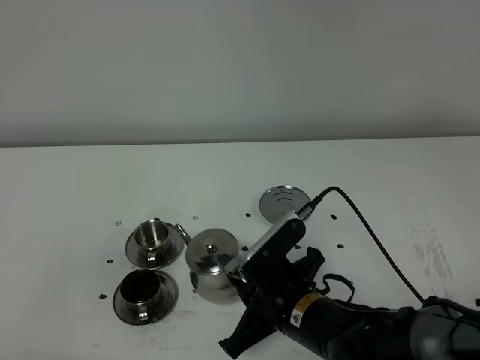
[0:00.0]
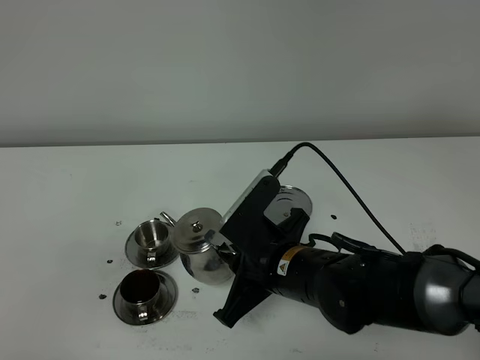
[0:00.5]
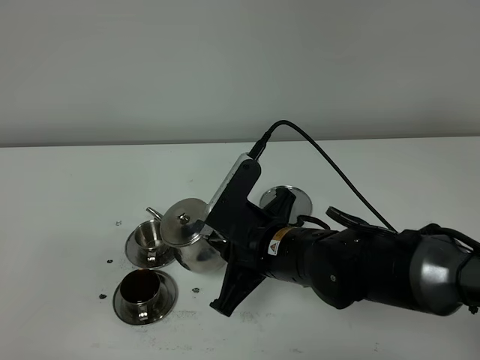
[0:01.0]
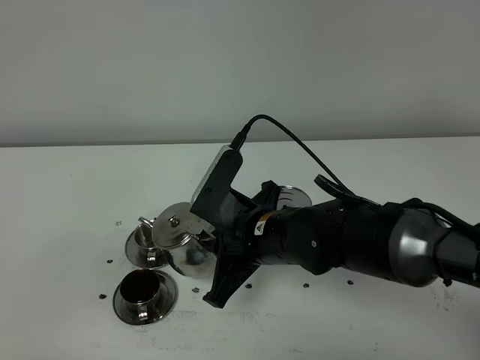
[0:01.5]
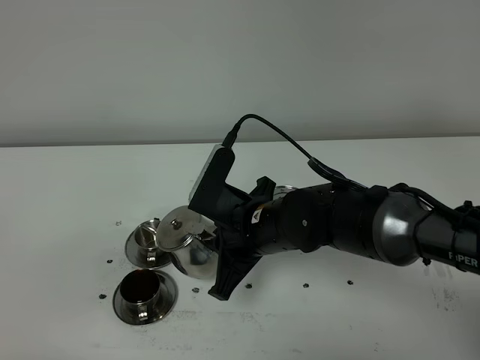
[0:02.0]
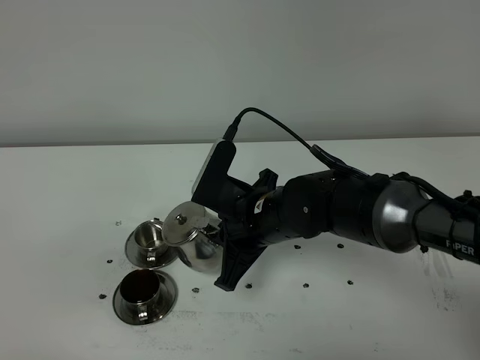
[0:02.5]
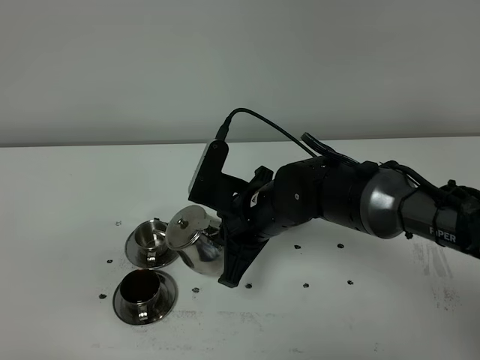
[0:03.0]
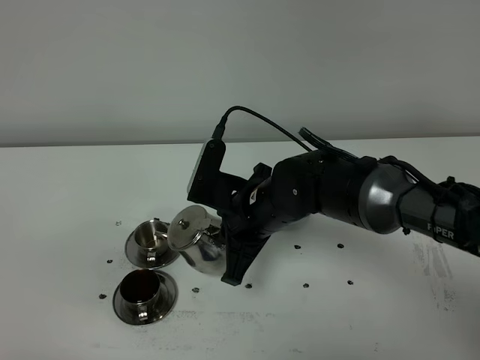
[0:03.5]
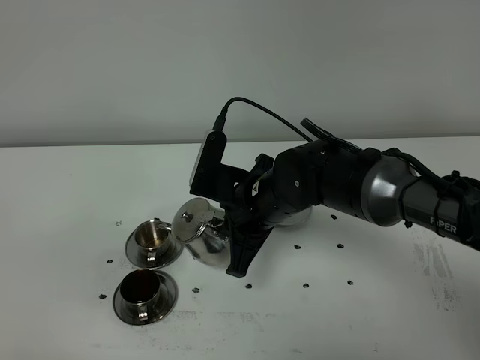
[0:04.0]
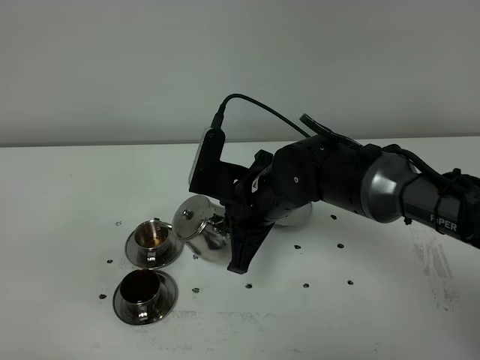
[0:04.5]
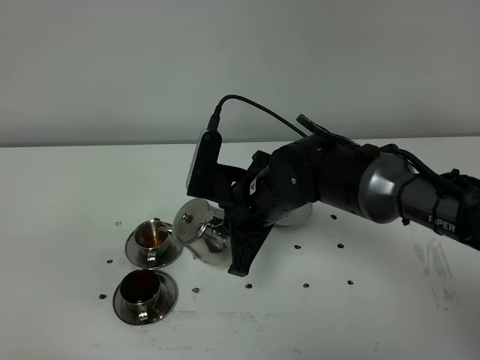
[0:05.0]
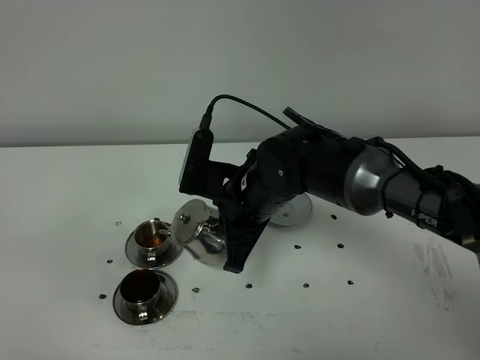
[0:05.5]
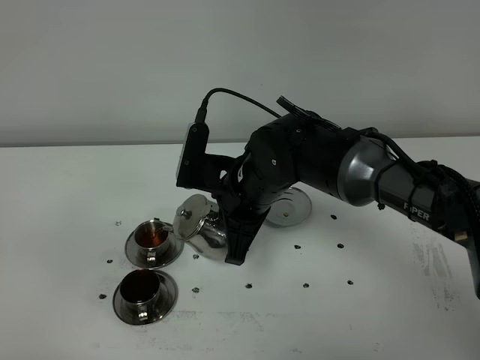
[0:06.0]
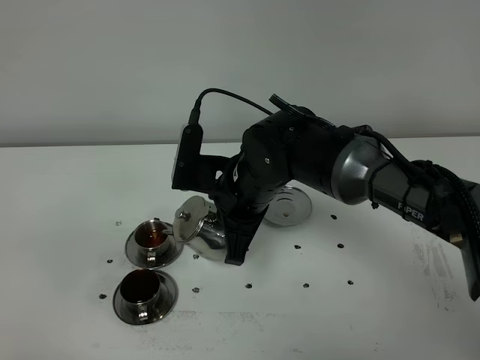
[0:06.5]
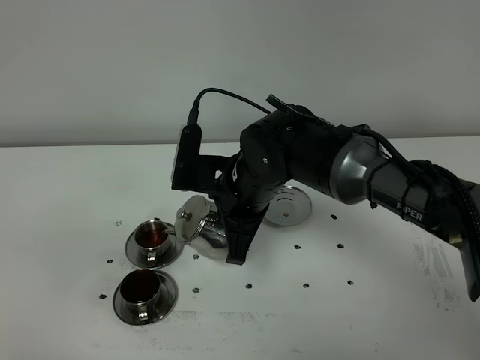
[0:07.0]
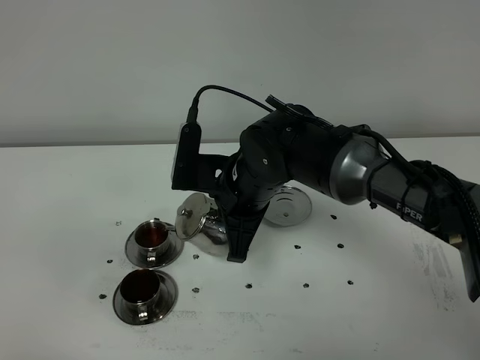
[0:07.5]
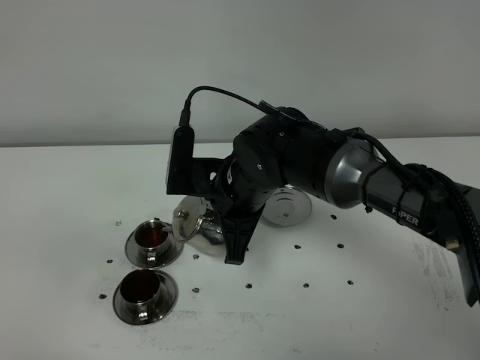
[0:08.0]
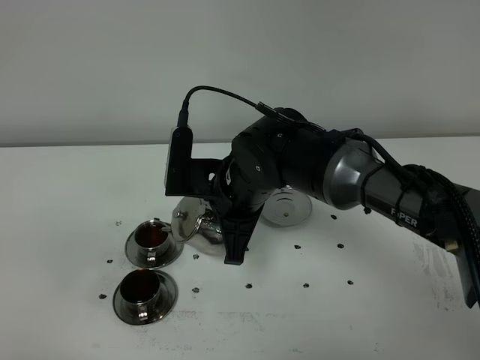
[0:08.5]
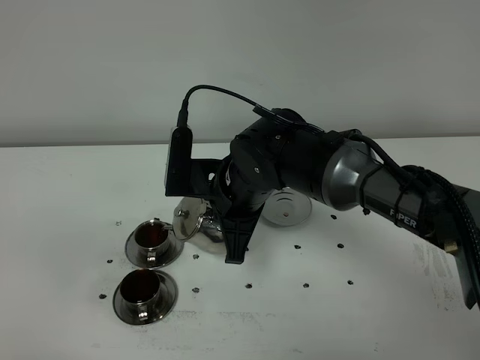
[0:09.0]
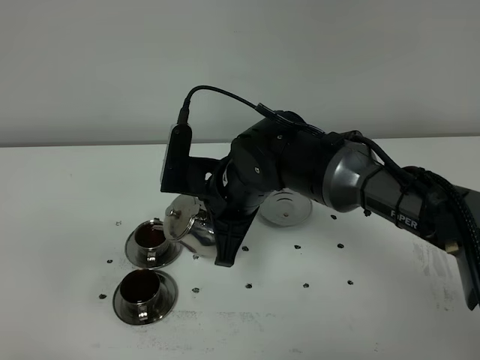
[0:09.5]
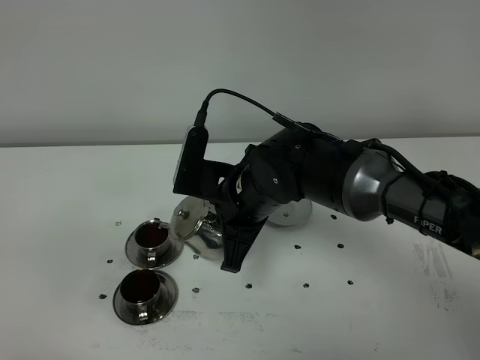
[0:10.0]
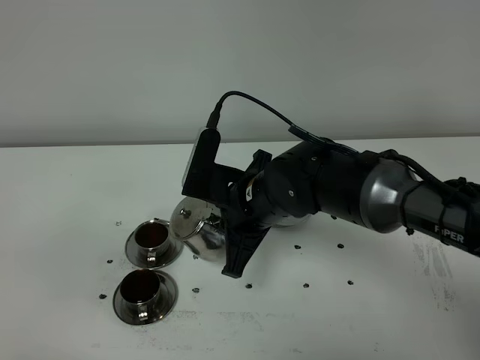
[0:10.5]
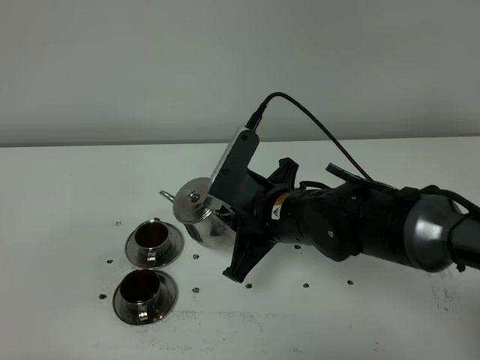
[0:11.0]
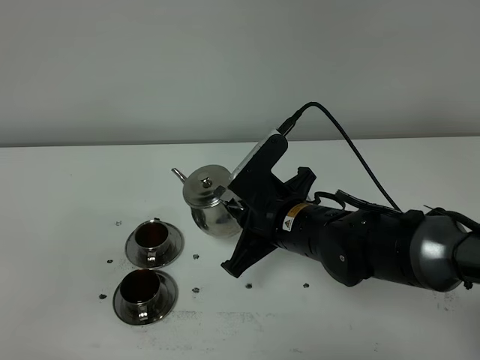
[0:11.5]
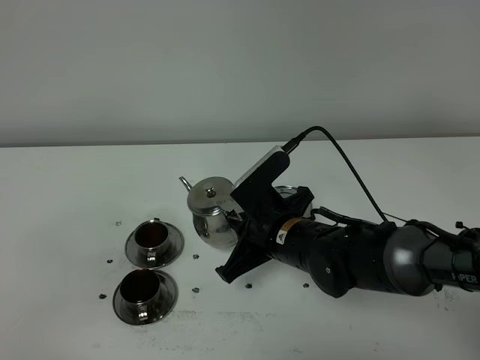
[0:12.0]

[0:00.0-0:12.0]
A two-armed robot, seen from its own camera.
Task of the whole recording: grasp the stainless steel teapot and pour the tea into the two stainless steel teacups one by one, put the stainless steel teapot back in its original place.
Step, 0:00.0 to 0:10.5: Pour tea into the teacup with the right gripper.
0:00.0 to 0:02.0: The right gripper is displaced forward and upward by roughly 10 cm.
0:02.0 to 0:06.0: The grippers stay close to where they were, moving slightly.
0:06.0 to 0:10.0: The grippers move only a little.
0:10.0 to 0:12.0: The right gripper goes some 5 cm downward.

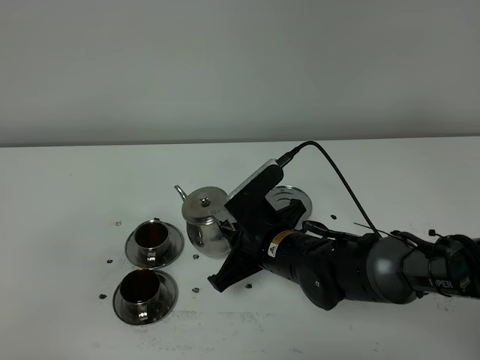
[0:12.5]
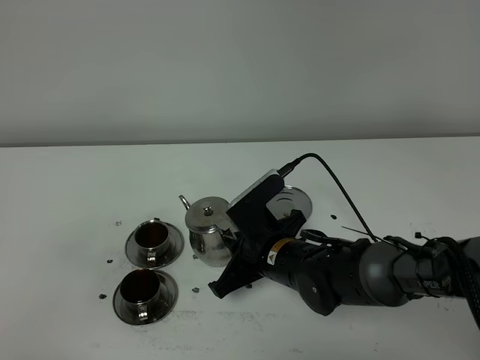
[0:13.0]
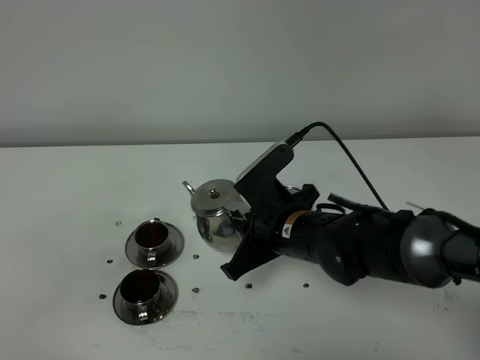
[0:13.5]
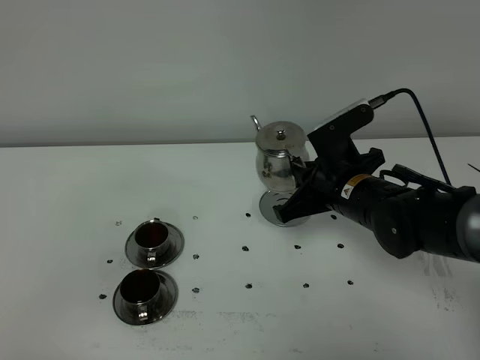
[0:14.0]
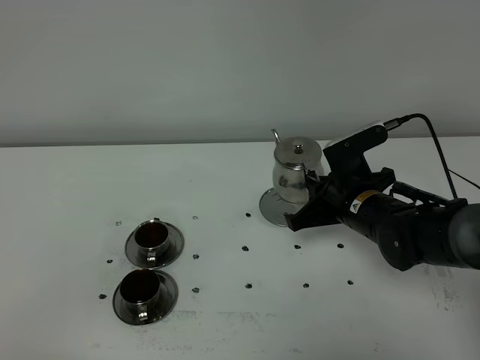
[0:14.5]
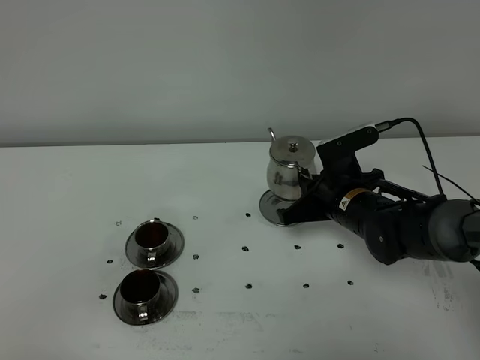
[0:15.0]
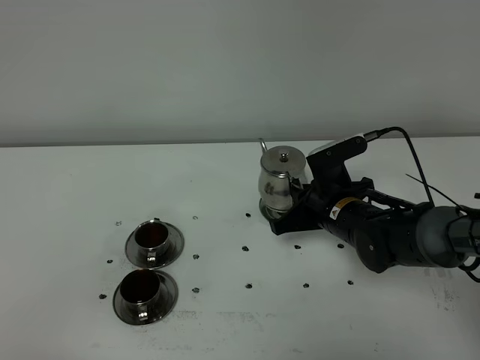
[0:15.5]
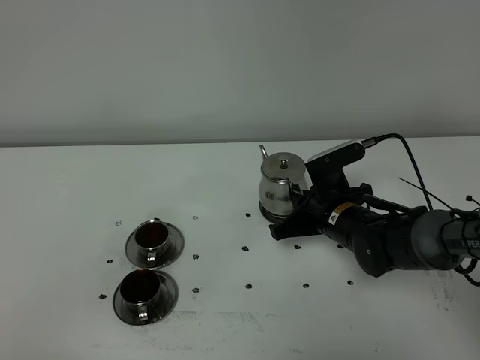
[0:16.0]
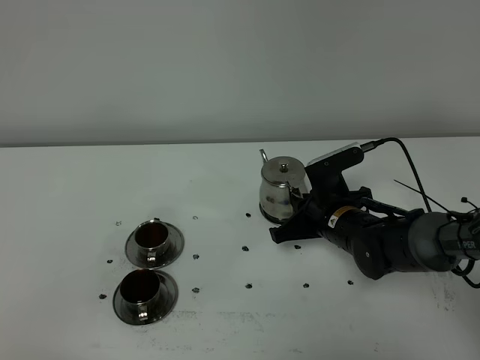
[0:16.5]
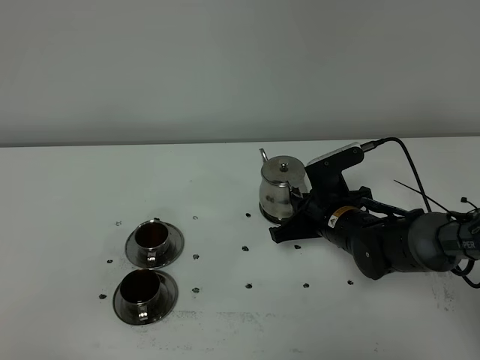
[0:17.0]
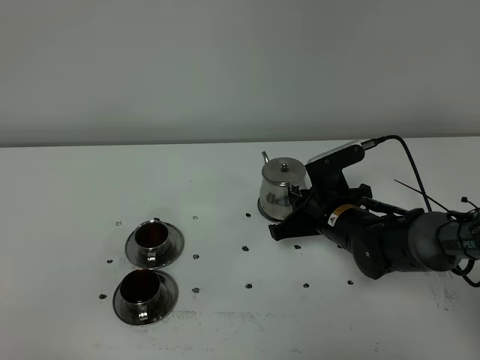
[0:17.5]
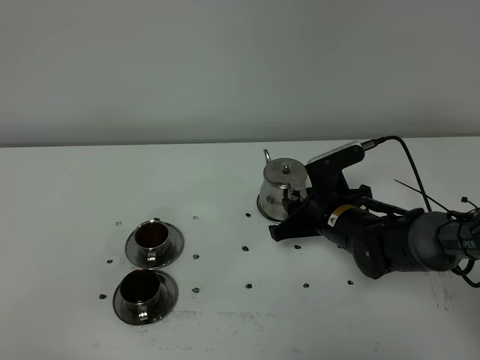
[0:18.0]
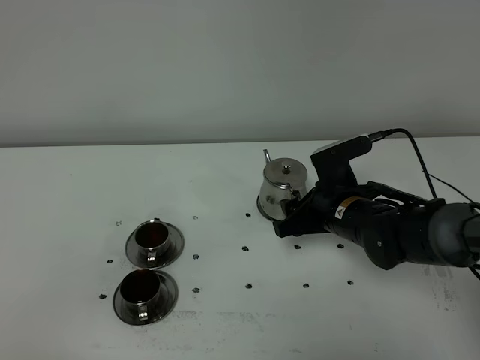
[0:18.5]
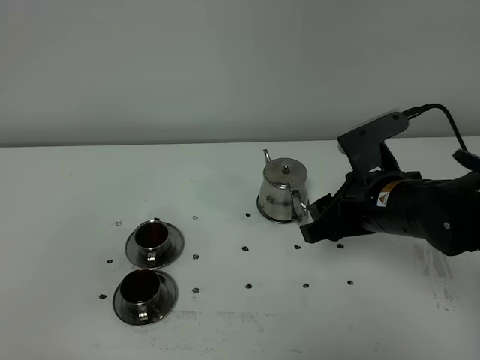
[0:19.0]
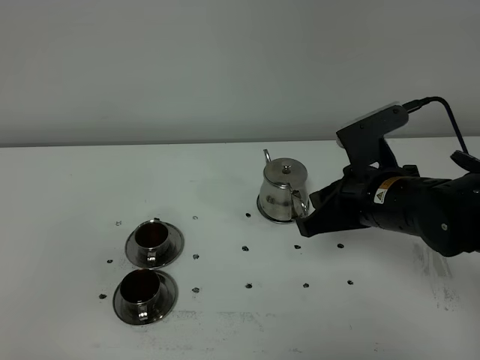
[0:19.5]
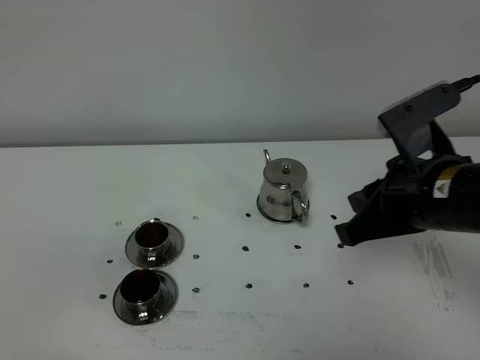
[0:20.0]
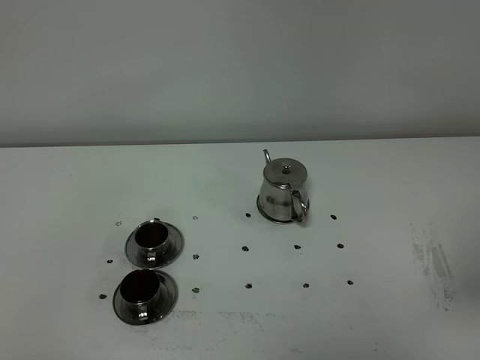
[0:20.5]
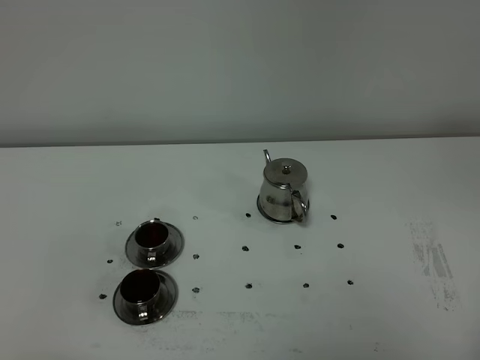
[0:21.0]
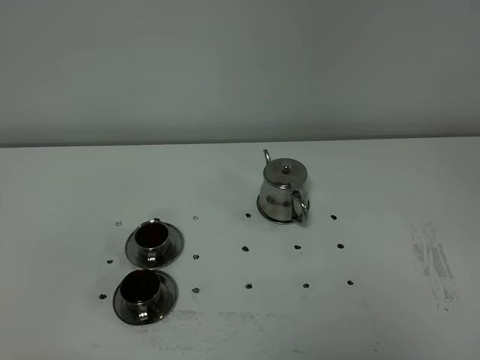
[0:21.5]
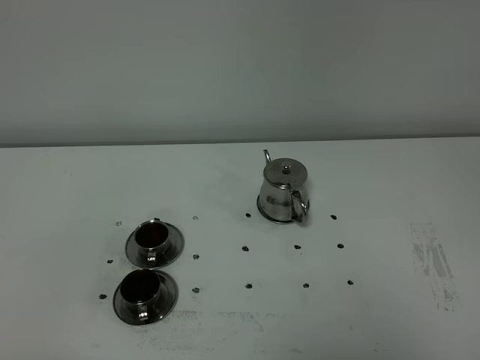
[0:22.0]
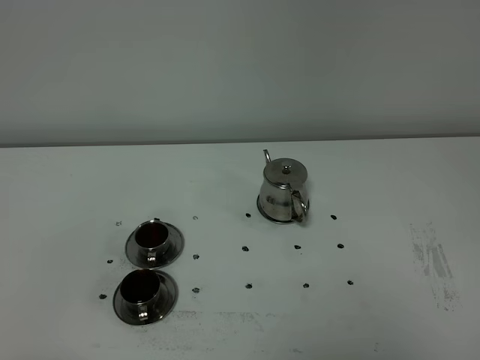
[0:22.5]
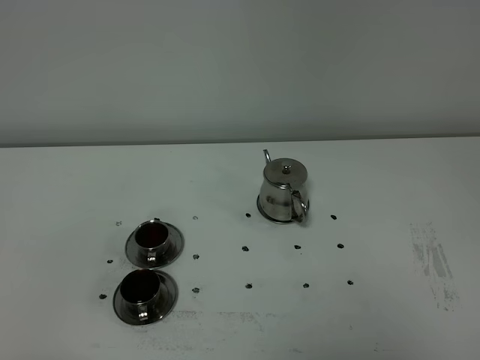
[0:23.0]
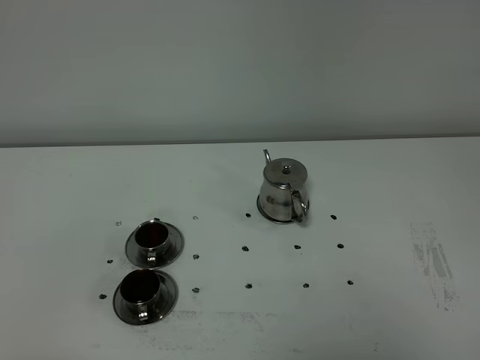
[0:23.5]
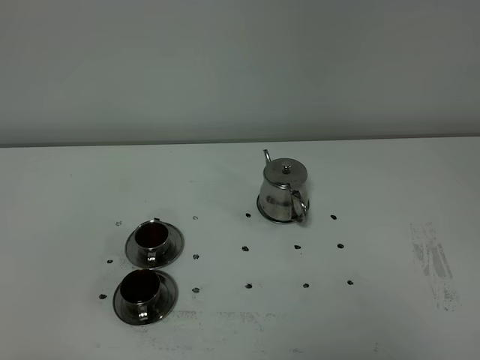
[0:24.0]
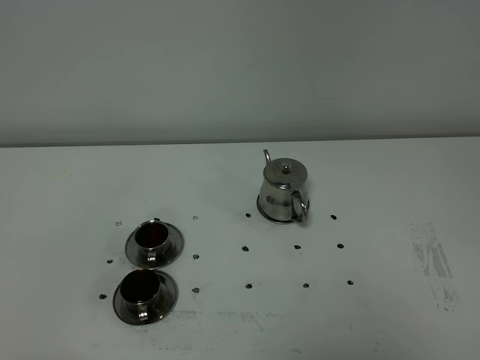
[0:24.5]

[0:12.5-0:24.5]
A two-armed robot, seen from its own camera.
Task of the whole recording: grasp the stainless steel teapot and pour the tea into the two stainless steel teacups one by one, put the stainless steel teapot back in its original place.
0:12.5 to 0:14.5: The right gripper shifts some 10 cm to the right and forward.
0:14.5 to 0:16.5: The right gripper moves roughly 5 cm.
0:16.5 to 0:18.5: The right gripper opens its fingers.
0:18.5 to 0:20.5: The right gripper is displaced backward, upward and to the right by some 30 cm, and closes its fingers.
0:22.5 to 0:24.5: Both grippers stay put.
